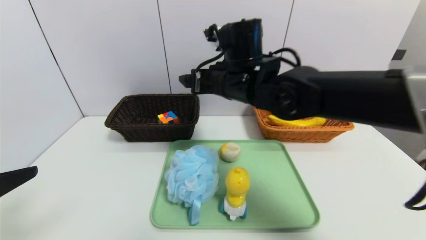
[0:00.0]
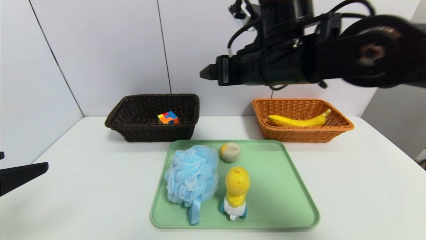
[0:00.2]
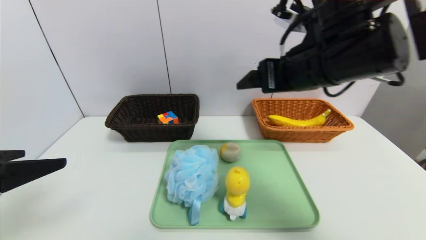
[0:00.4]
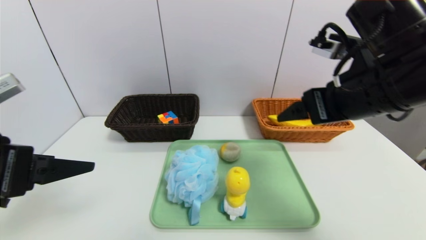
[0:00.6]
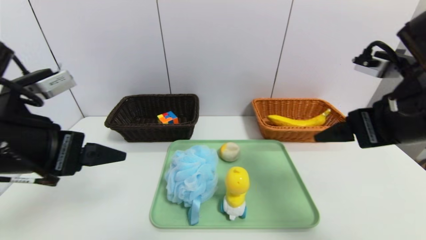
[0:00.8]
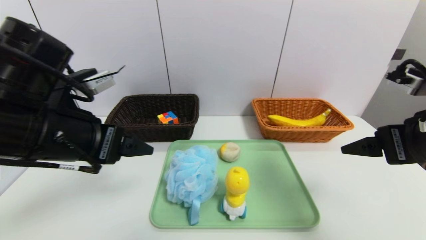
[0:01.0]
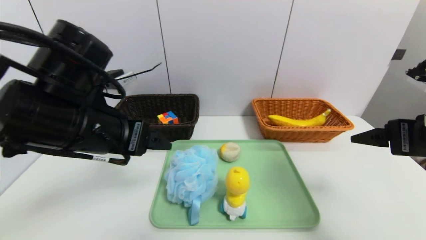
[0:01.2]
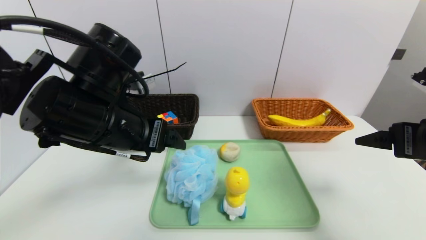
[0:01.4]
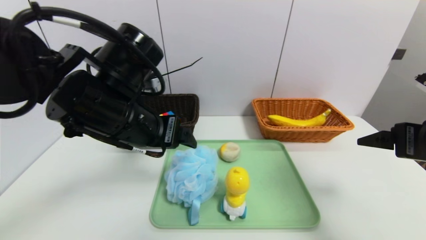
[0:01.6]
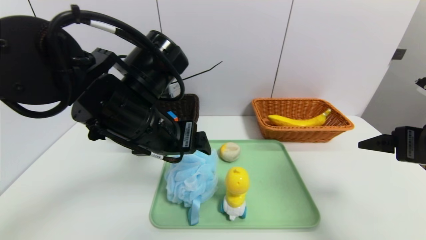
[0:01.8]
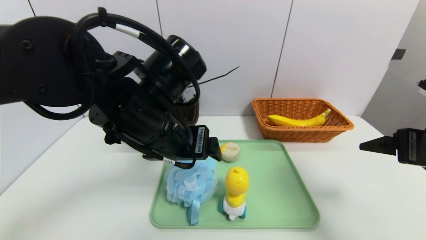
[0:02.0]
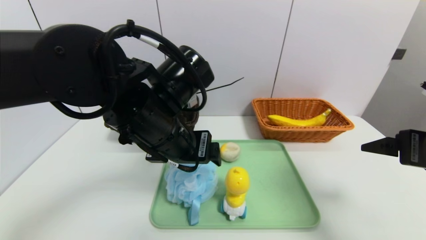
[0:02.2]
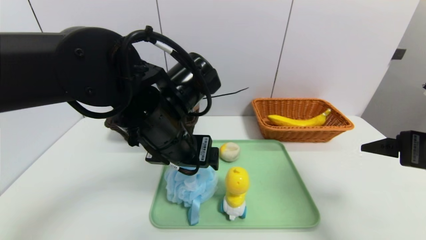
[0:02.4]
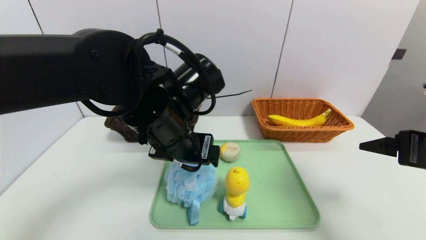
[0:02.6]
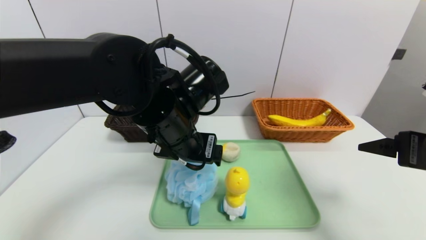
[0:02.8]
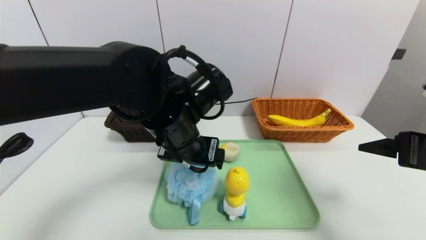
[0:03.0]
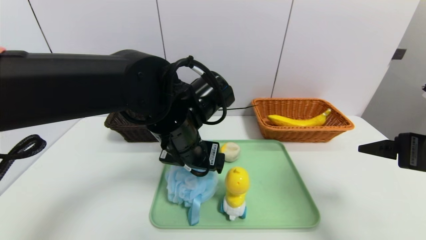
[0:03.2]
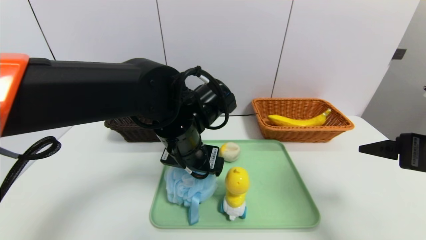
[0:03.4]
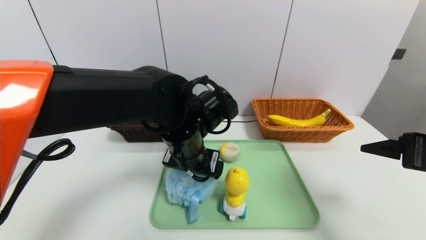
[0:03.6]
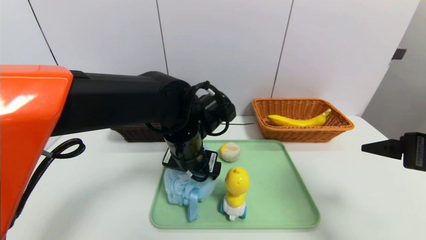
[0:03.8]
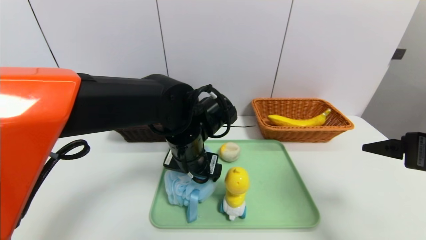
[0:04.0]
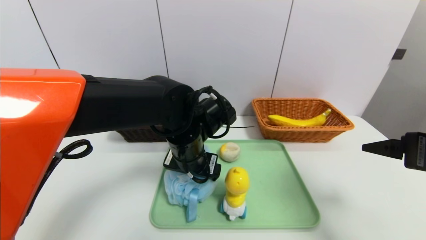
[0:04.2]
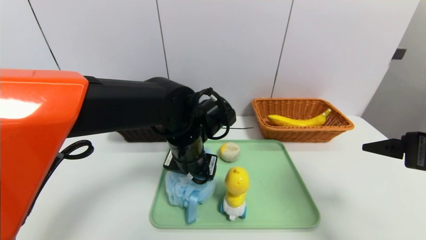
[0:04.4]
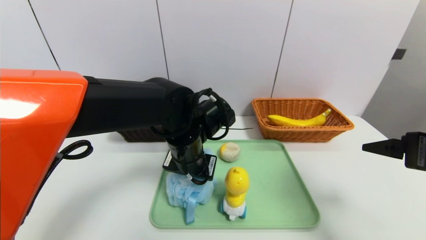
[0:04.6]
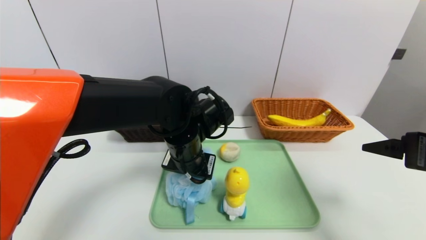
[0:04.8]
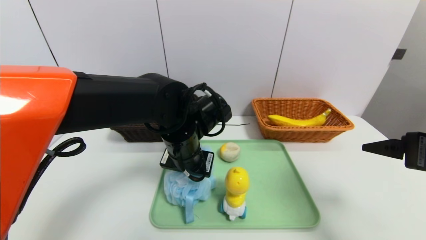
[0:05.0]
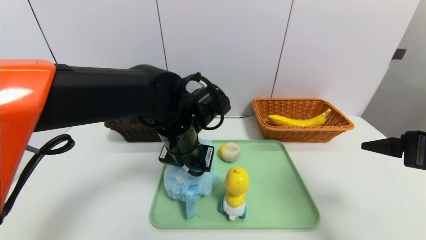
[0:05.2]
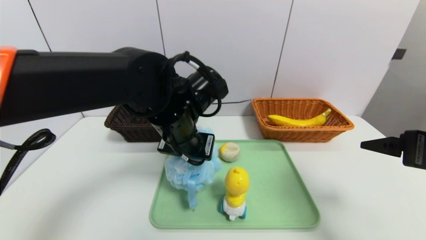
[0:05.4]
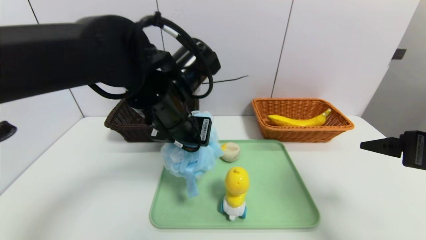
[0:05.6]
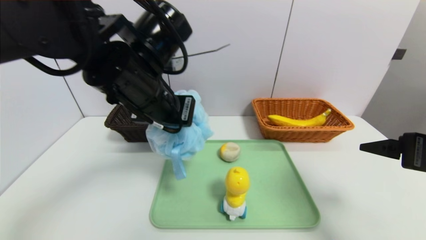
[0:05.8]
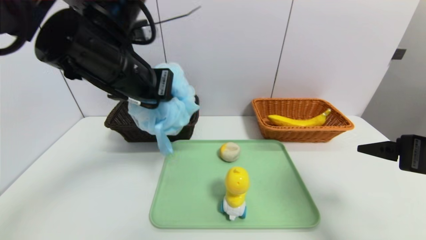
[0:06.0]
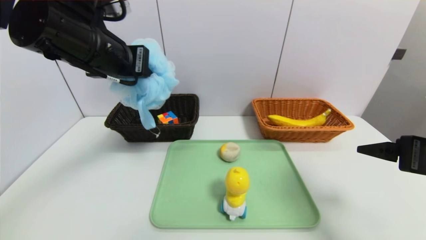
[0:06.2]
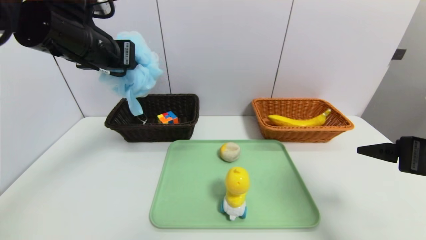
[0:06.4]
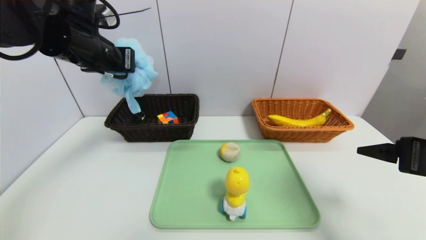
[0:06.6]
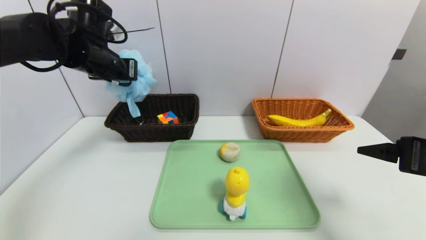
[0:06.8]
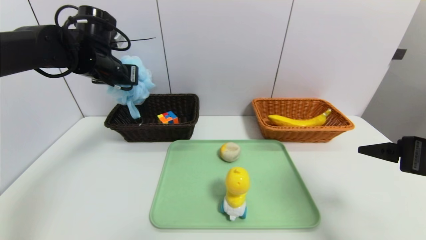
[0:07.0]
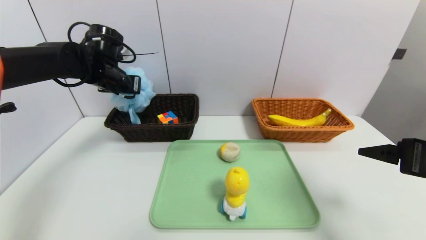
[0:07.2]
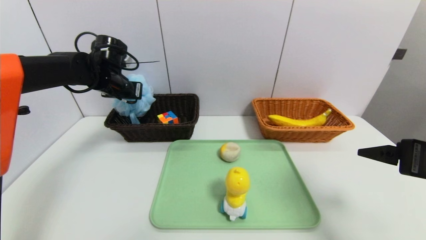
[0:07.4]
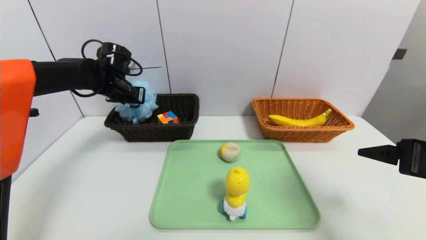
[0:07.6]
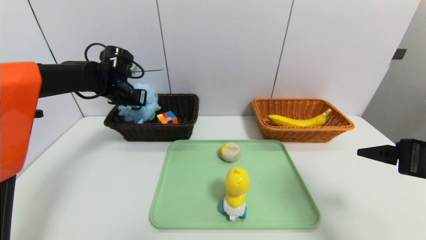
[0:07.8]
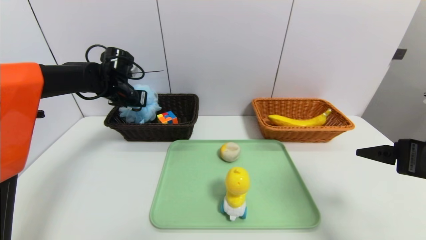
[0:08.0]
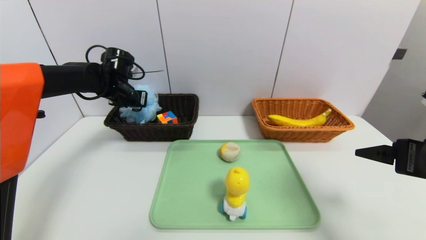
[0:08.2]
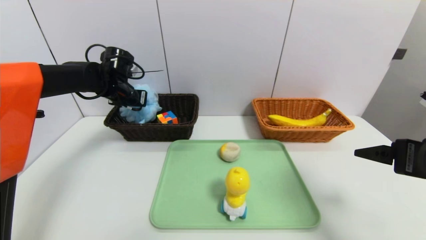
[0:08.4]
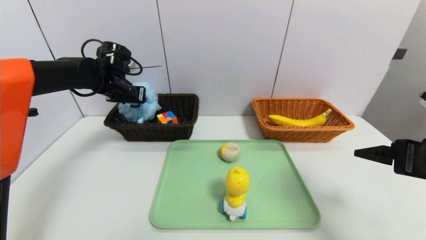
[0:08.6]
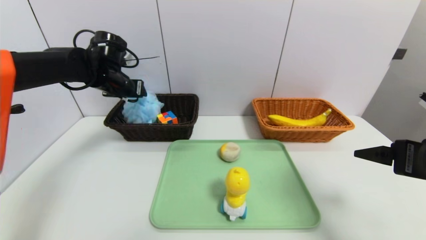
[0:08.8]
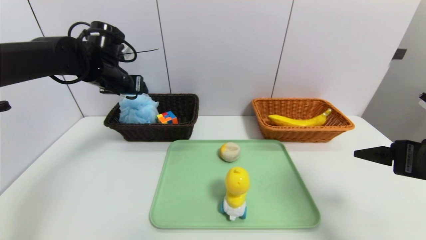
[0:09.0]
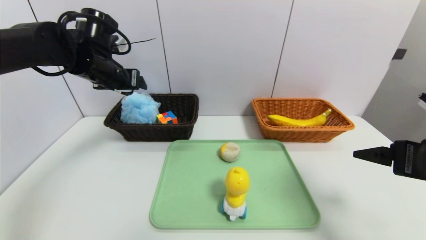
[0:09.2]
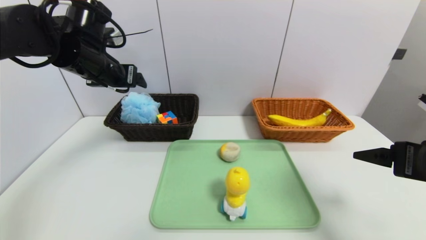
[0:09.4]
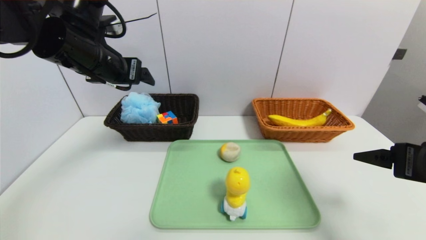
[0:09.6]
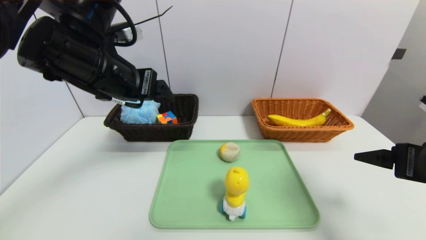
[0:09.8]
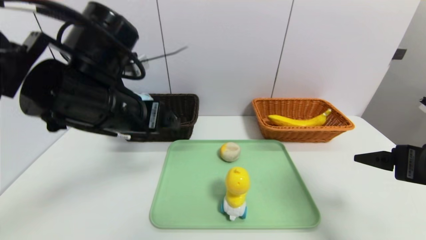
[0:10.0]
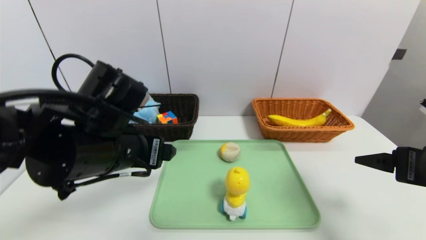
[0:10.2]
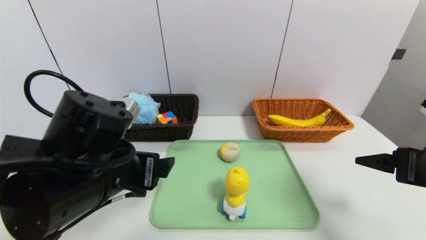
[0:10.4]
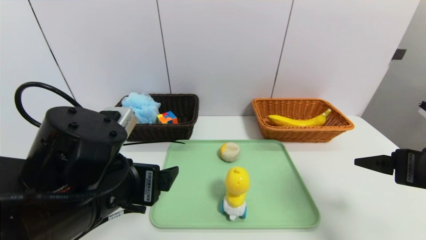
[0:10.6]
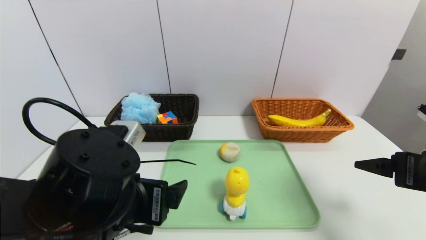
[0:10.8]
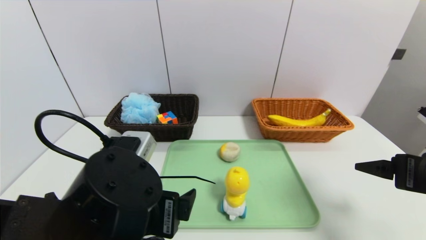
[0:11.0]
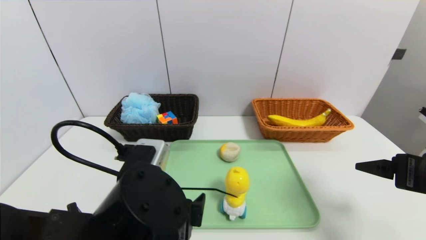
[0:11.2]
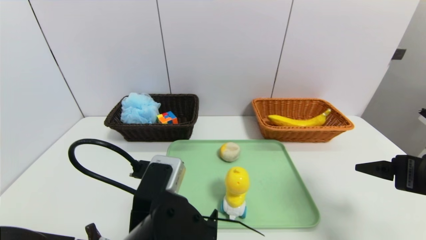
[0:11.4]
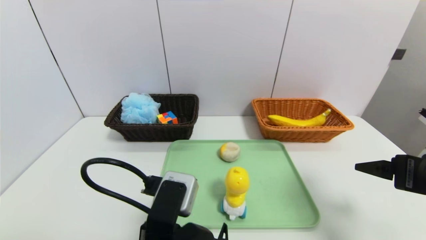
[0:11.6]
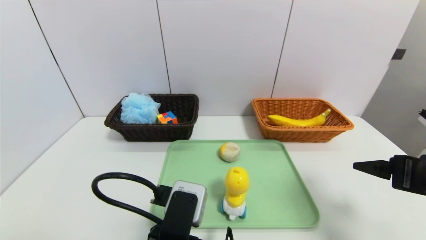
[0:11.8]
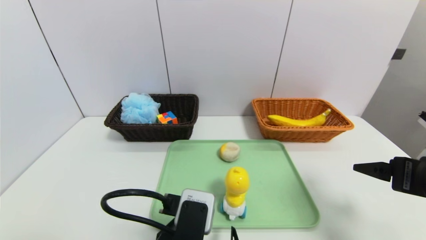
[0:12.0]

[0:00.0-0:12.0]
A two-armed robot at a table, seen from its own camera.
Task of the whole recording: place the food in the right basket with the right gripper, and place the non food items in the left basket with the left gripper.
Step, 0:00.0 to 0:09.4: Grasp the bath ball and put it in the left basket.
0:00.0 to 0:01.6: The left gripper goes about 25 cm forward and to the right. The right gripper shifts some 30 cm to the right and backward.
0:01.6 to 0:03.0: The left gripper goes some 5 cm to the right.
0:03.0 to 0:04.4: The left gripper moves downward, some 5 cm.
0:04.4 to 0:06.0: The left gripper moves upward and to the left, some 20 cm, and closes its fingers.
0:06.0 to 0:07.6: The left gripper moves forward, to the left and downward, approximately 25 cm.
0:07.6 to 0:09.0: The left gripper changes place by about 5 cm, and opens its fingers.
0:09.0 to 0:10.4: The left gripper shifts about 25 cm backward.
0:10.4 to 0:12.0: The left gripper heads to the right, downward and backward, covering some 15 cm.

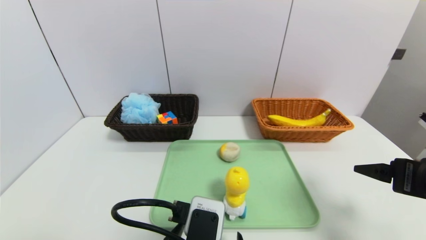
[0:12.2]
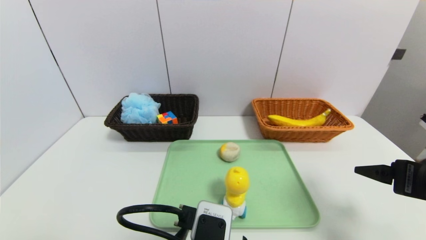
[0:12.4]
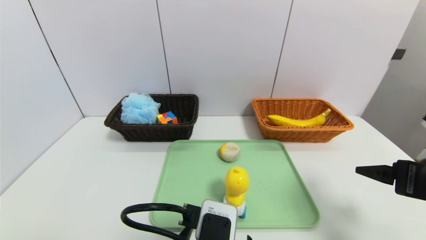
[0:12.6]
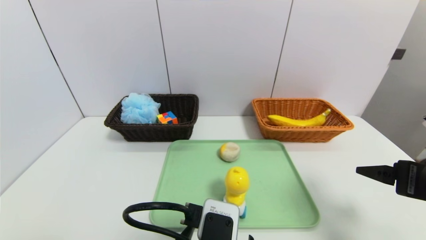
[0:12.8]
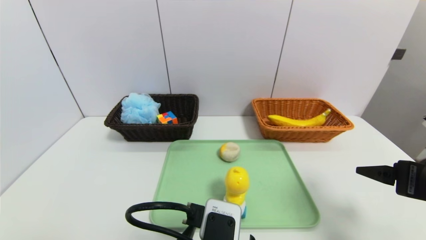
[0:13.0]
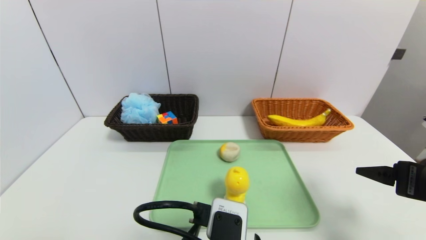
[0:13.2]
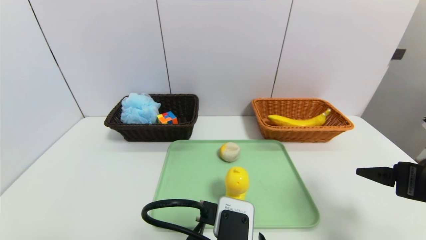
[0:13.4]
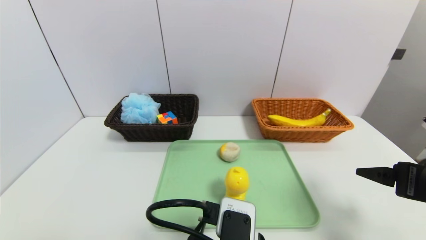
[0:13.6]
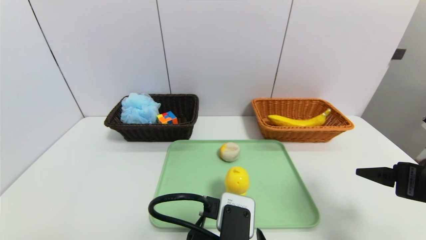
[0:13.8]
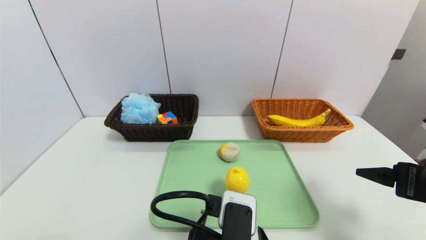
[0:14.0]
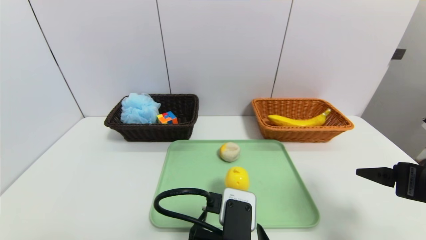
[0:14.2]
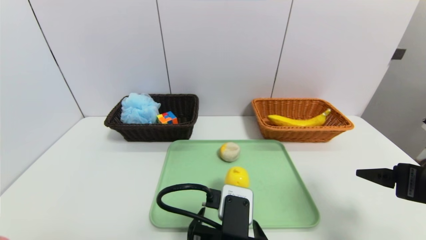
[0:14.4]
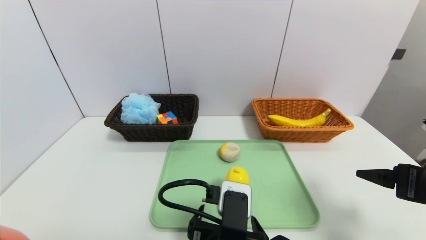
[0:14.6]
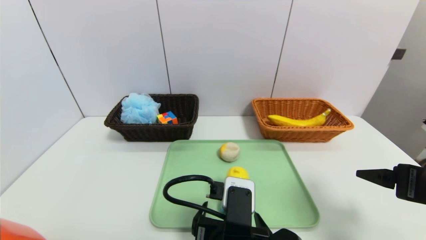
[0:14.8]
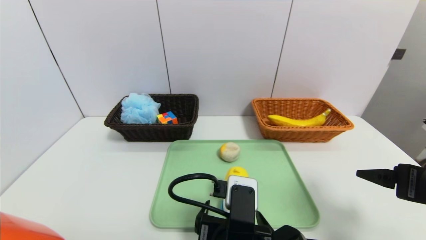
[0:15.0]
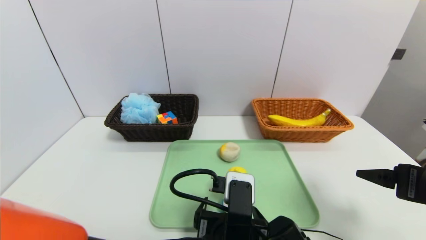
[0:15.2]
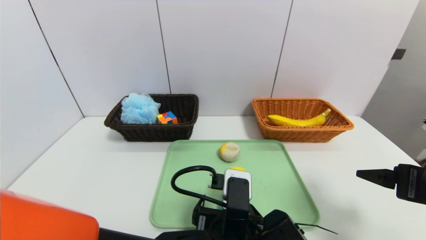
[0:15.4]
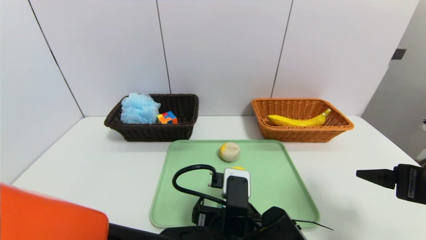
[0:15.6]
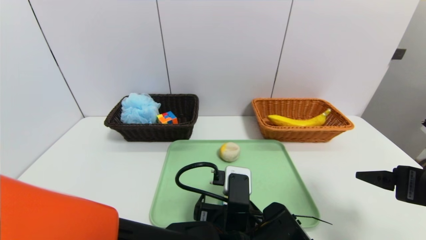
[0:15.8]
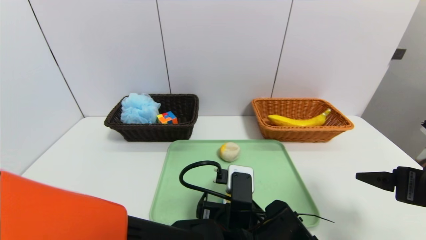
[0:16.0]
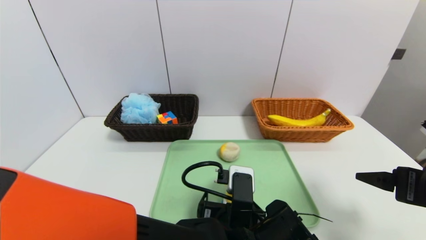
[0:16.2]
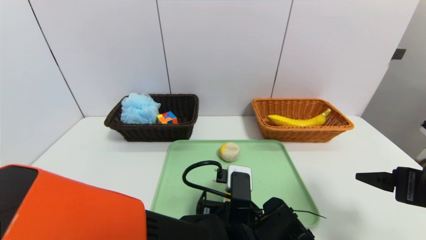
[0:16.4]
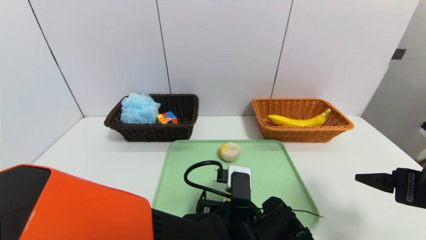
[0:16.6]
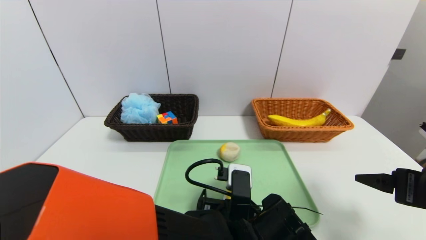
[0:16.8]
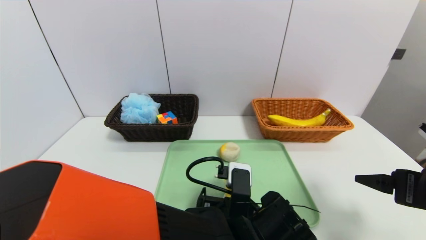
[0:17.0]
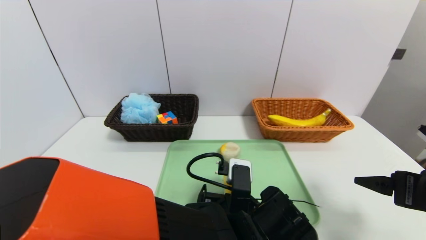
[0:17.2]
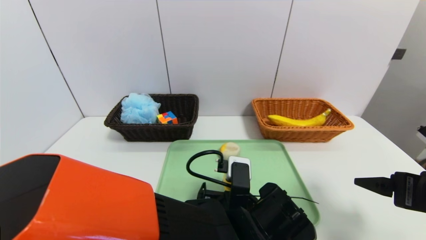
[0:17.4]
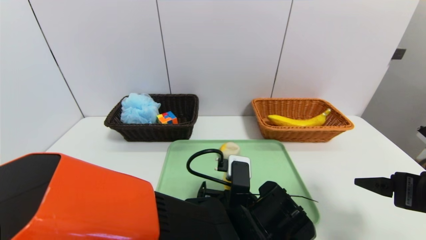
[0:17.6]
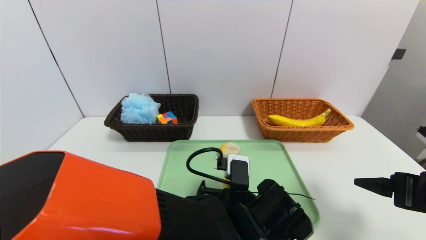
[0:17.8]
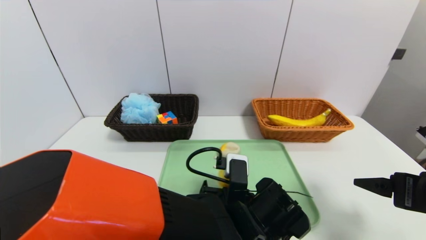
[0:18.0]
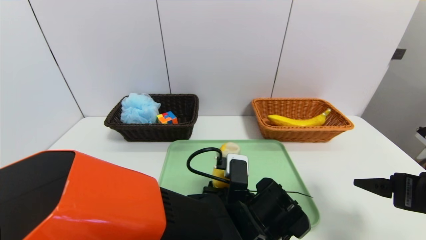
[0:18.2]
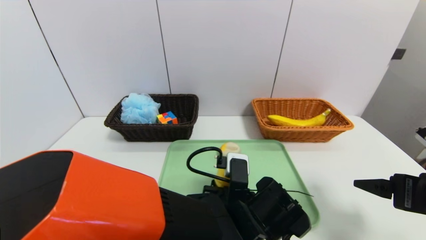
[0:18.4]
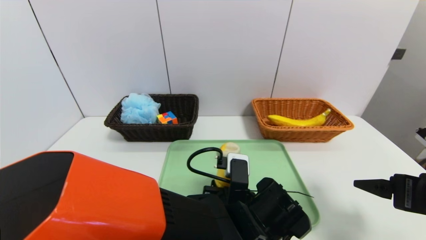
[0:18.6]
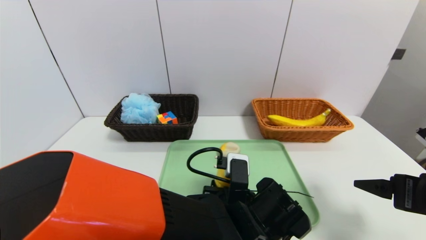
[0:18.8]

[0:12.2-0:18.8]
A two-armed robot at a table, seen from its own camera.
Task of the whole recording: place the food in the right basket with the right gripper, and place the non food items in the left basket with the left gripper.
0:12.2 to 0:13.8: There are only small adjustments of the grippers.
0:13.8 to 0:15.4: The left gripper moves forward, approximately 5 cm.
0:15.4 to 0:17.2: There are only small adjustments of the grippers.
0:17.2 to 0:18.8: The left gripper closes its fingers.
